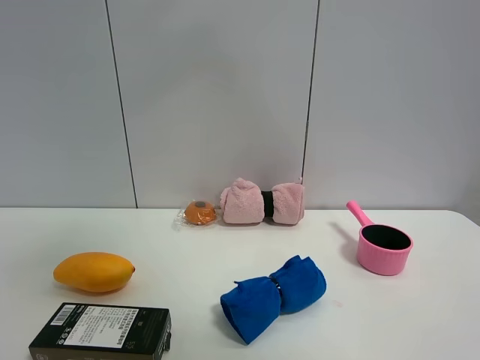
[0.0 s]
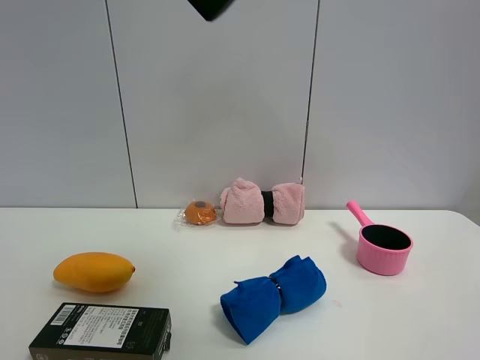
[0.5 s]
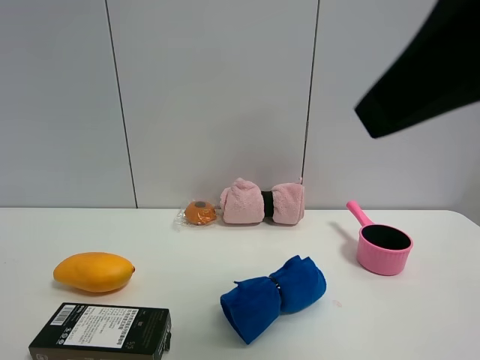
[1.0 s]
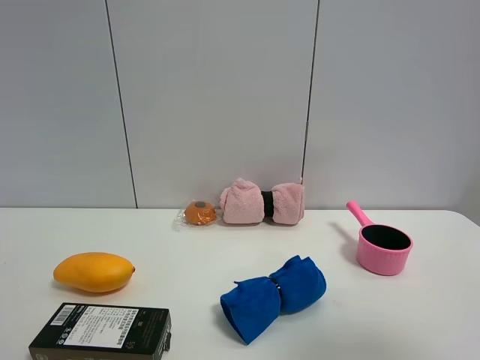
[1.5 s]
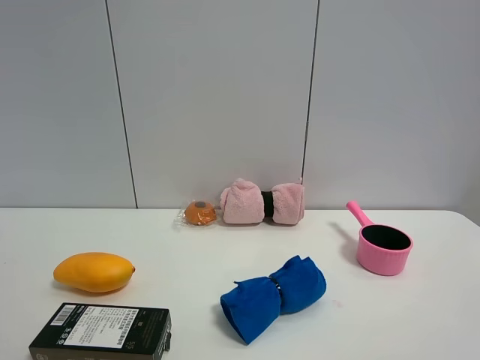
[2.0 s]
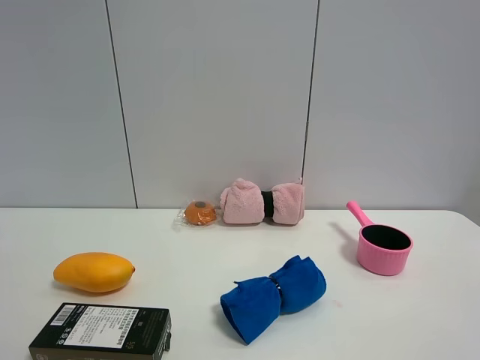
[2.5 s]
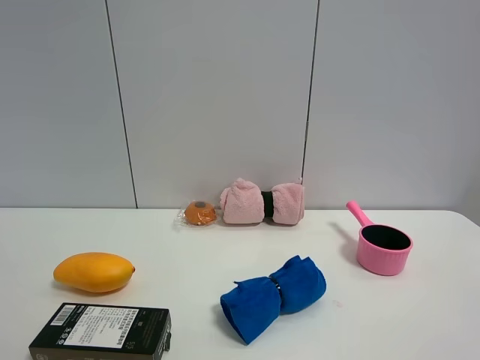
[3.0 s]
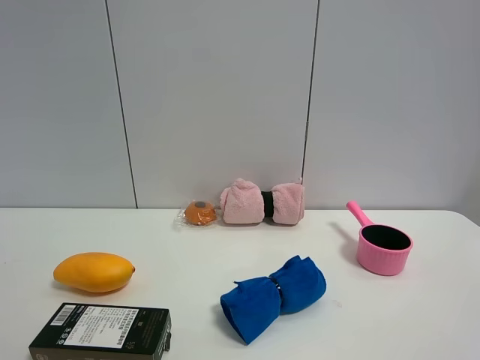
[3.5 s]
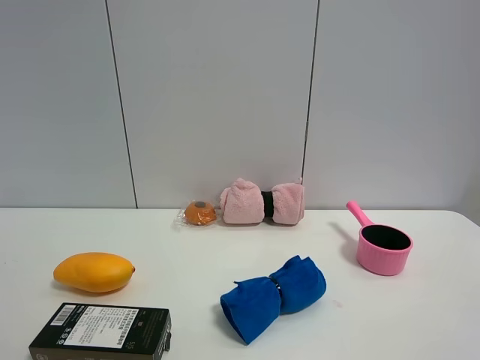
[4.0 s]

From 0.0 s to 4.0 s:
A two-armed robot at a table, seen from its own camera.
Task of the whole recording: the gripper move the object.
From 0.0 s to 2.0 s: The right gripper goes some 40 cm to the right, backward and downward.

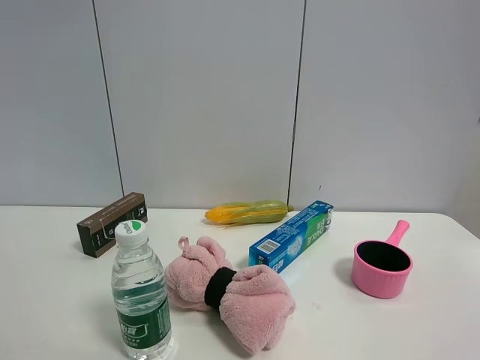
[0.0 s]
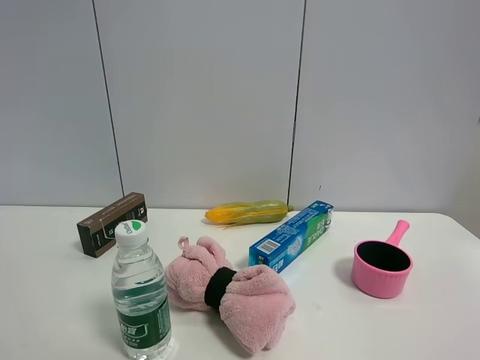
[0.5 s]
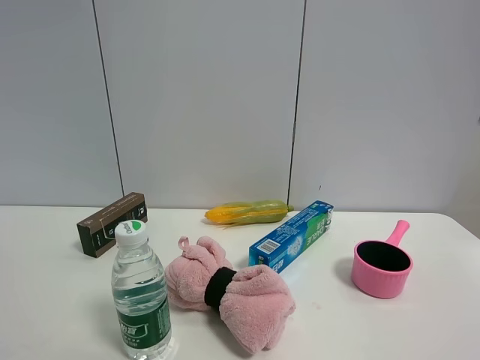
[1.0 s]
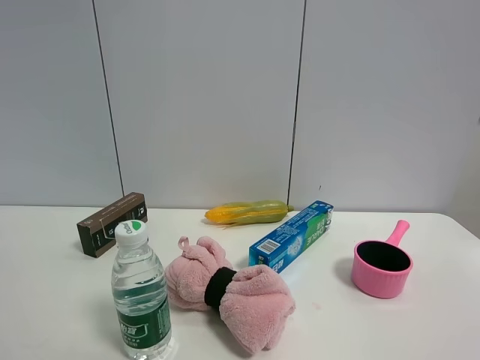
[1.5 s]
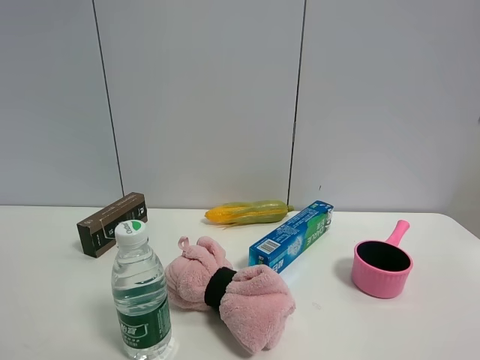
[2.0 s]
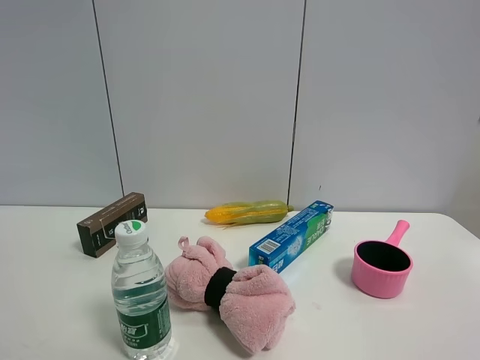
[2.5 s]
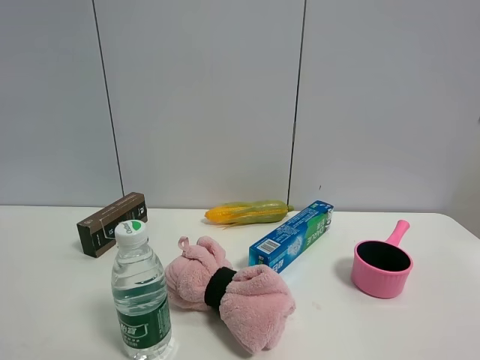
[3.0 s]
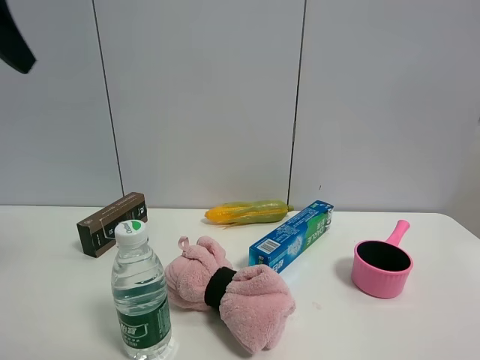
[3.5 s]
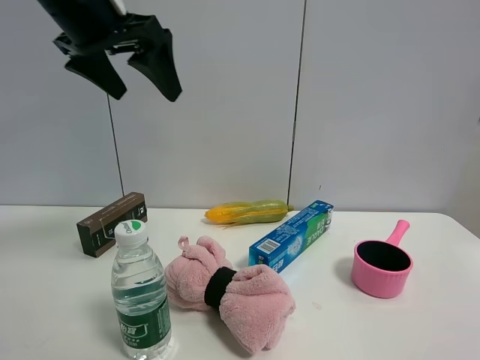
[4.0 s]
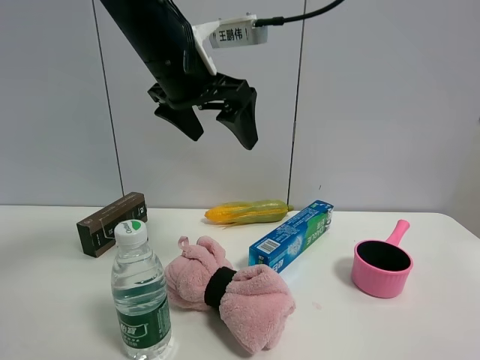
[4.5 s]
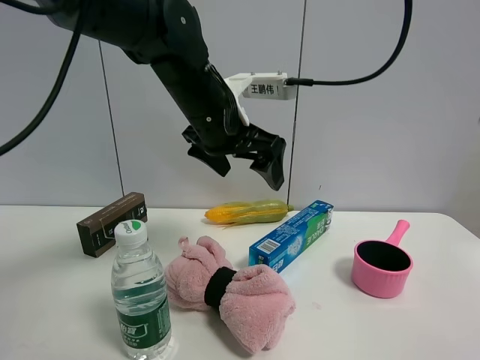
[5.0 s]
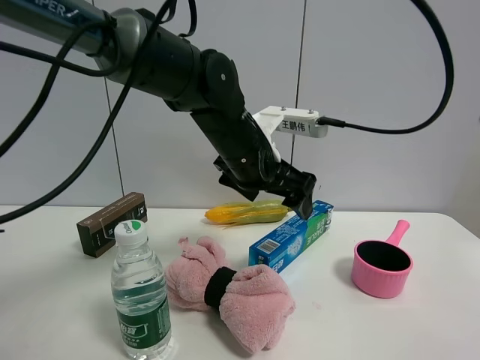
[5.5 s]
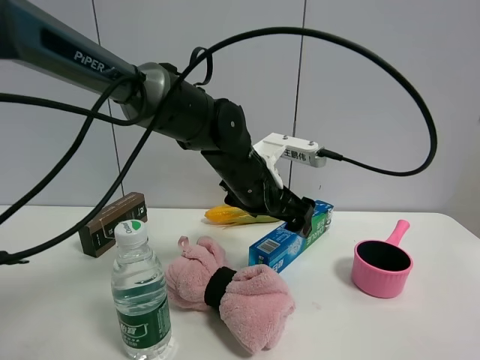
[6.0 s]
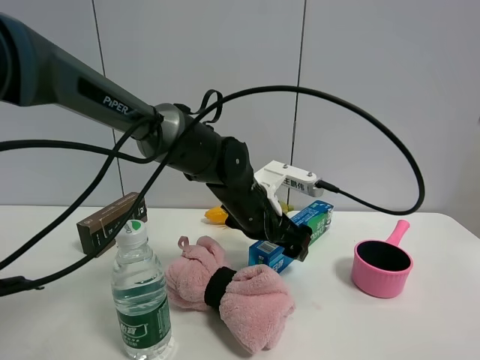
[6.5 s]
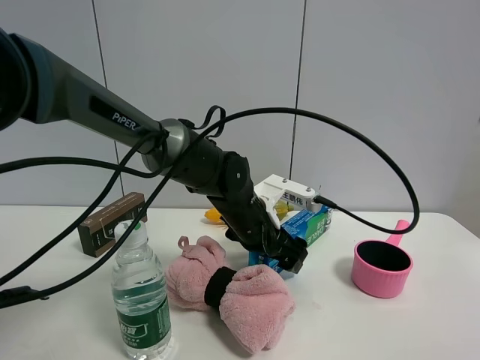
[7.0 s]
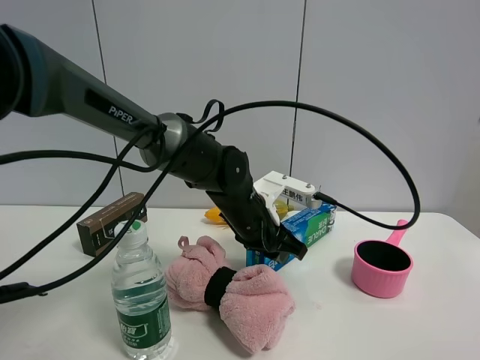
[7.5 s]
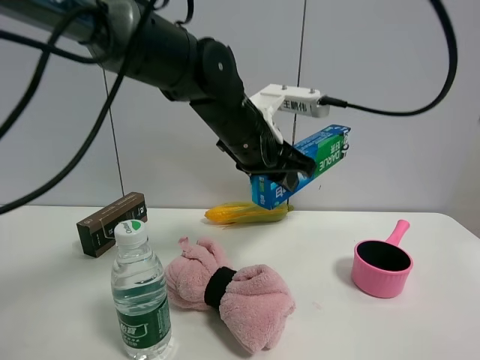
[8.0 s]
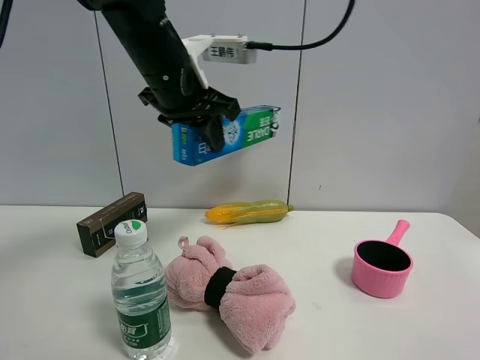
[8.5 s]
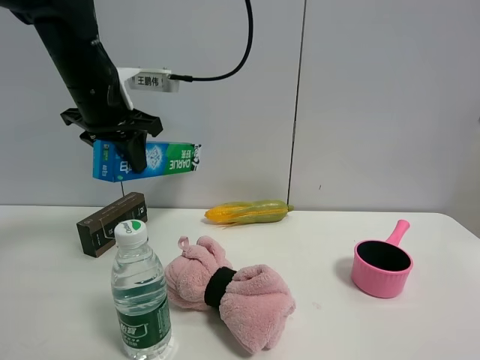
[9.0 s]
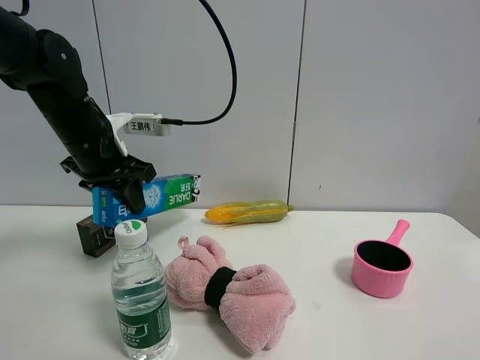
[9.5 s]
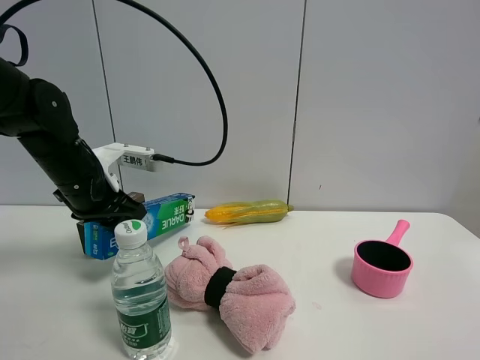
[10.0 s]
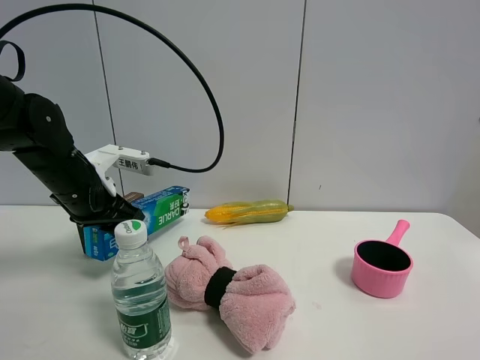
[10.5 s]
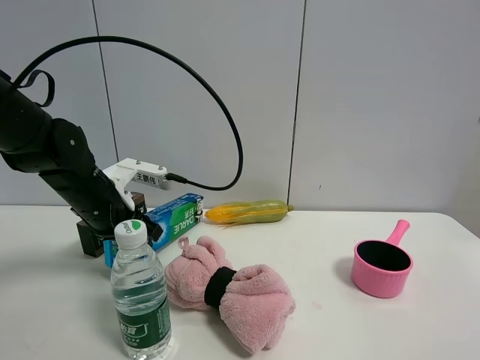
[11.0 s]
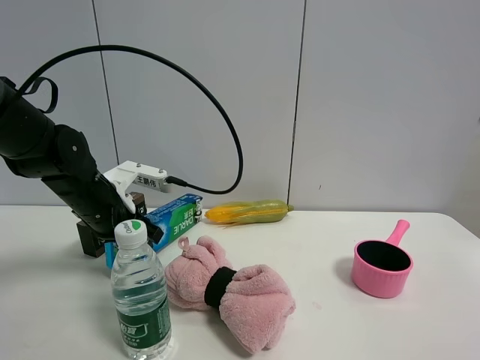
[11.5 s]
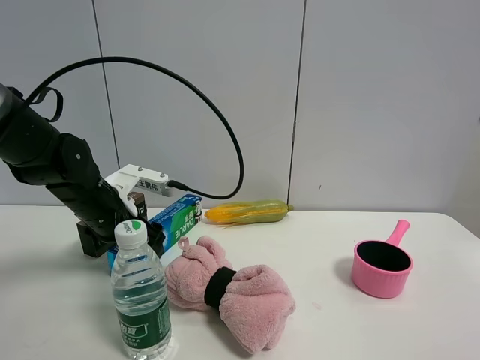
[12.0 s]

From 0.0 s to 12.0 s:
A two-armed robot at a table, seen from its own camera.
Task of the whole recording: the gripper move the object.
Step, from 0.0 s to 7.0 s: Grasp the toothpaste with the left gripper.
From 0.0 s to 2.0 s: The two grippers keep their place.
From 2.0 s to 4.0 s: The left gripper is displaced forward and to the right by about 40 cm.
From 4.0 s to 6.0 s: The left gripper travels downward and to the right by roughly 30 cm.
From 6.0 s to 8.0 s: The left gripper moves upward, approximately 10 cm, and closes.
From 8.0 s to 10.0 s: The left gripper travels to the left by some 20 cm.
From 10.0 s to 12.0 s: The left gripper changes place by some 5 cm, and opens its fingers.

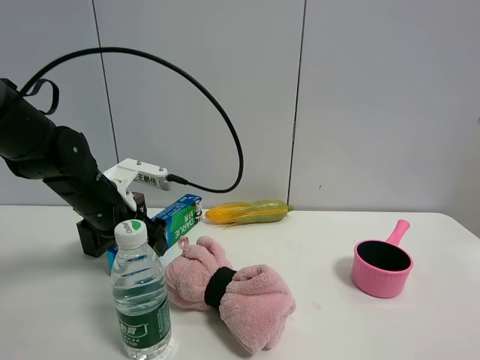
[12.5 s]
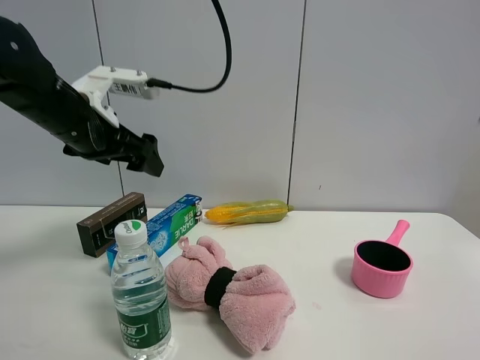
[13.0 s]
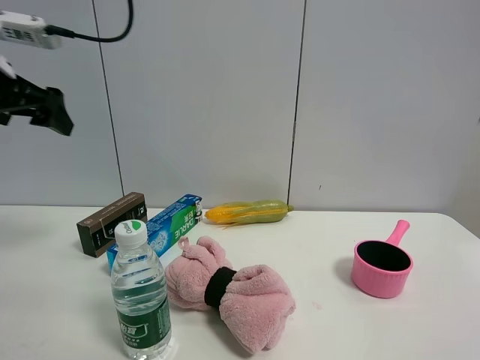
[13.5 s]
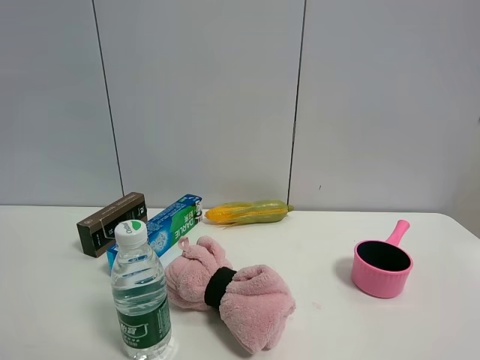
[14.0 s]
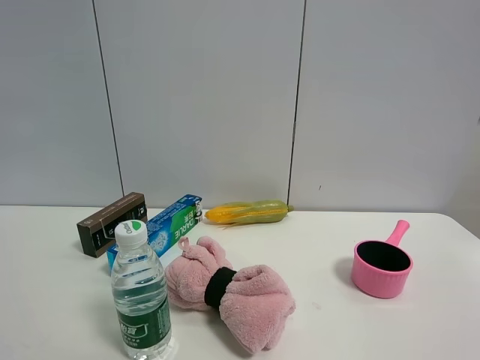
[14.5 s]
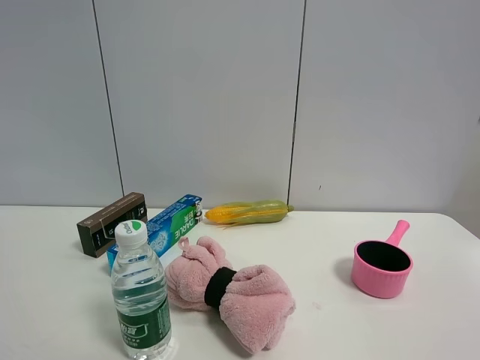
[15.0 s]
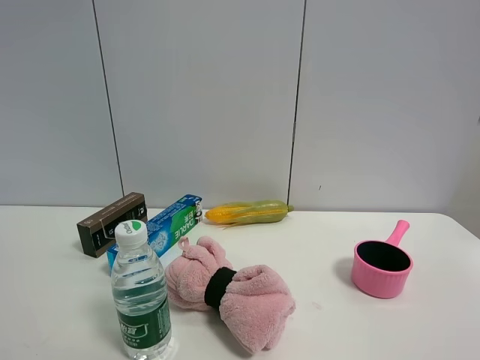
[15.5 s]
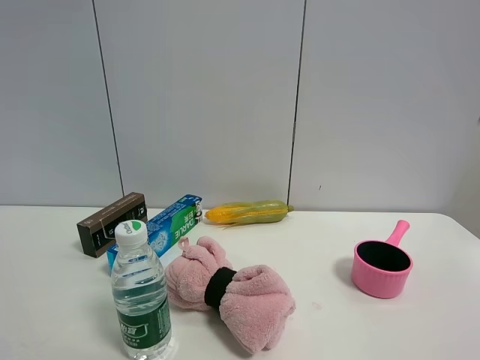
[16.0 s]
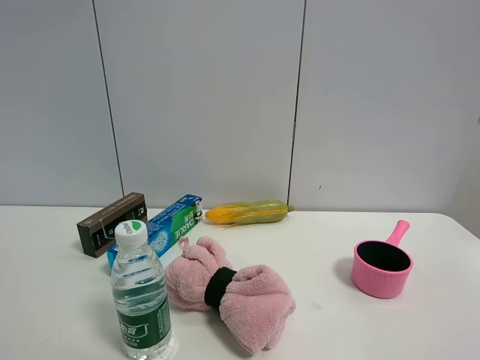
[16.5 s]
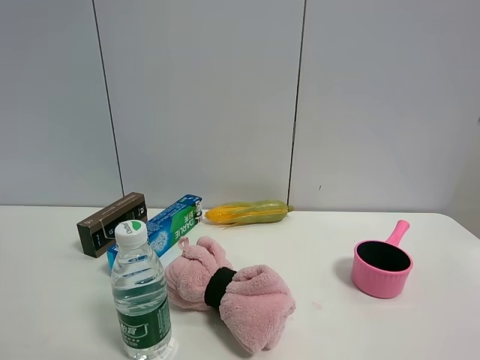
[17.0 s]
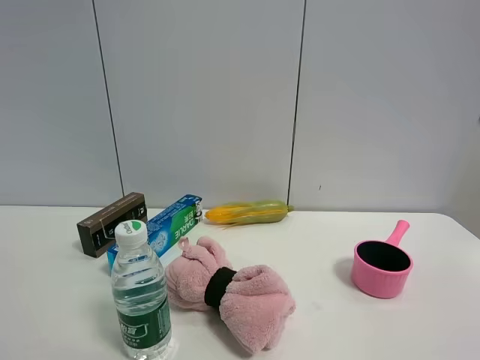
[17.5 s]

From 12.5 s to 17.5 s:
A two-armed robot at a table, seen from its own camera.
Task of the whole recording: the gripper move the object.
From 12.5 s to 15.0 s: The left gripper travels backward and upward by approximately 40 cm.
